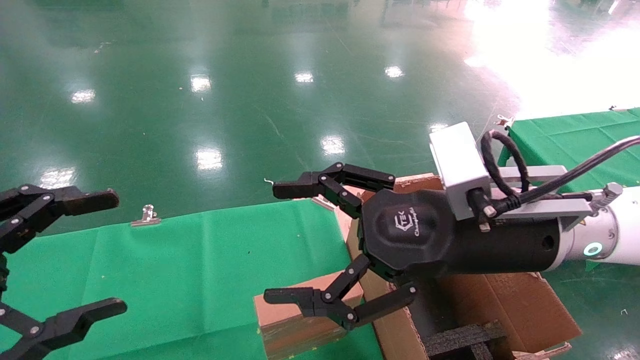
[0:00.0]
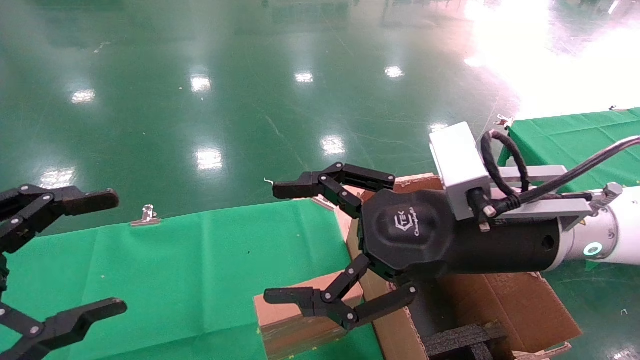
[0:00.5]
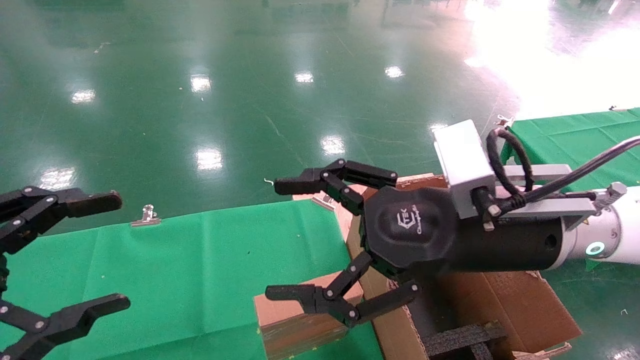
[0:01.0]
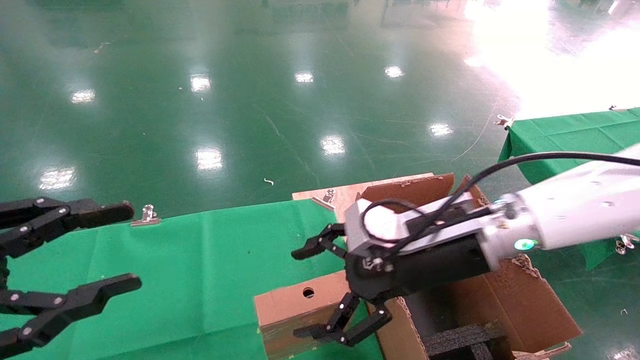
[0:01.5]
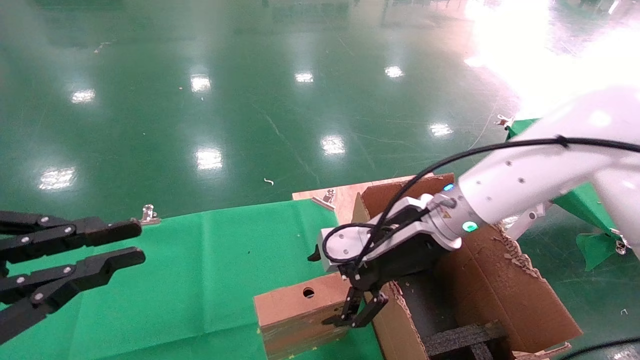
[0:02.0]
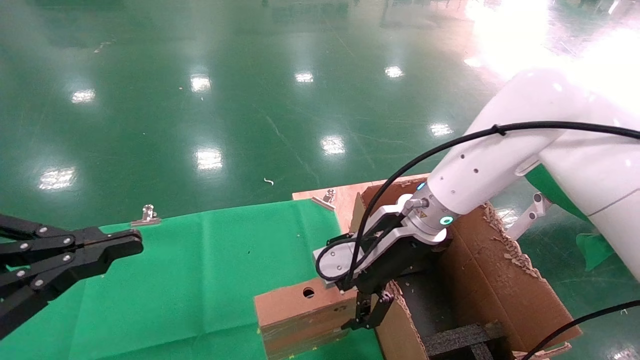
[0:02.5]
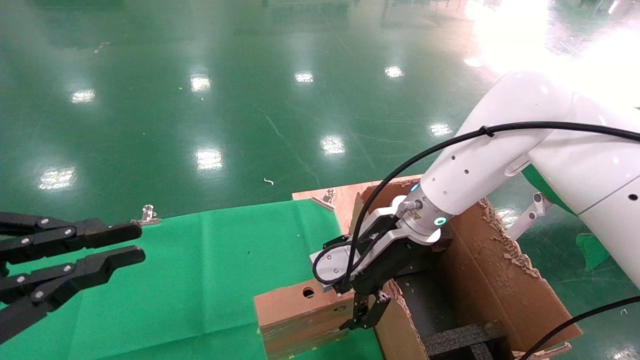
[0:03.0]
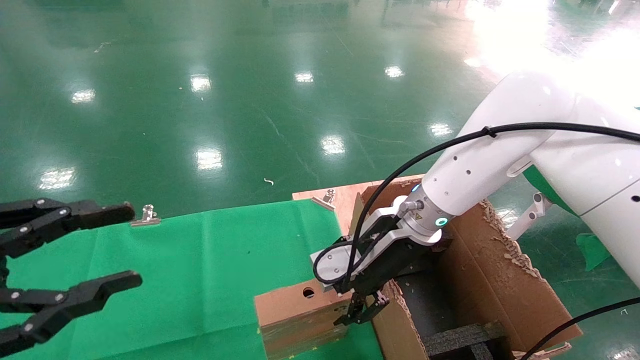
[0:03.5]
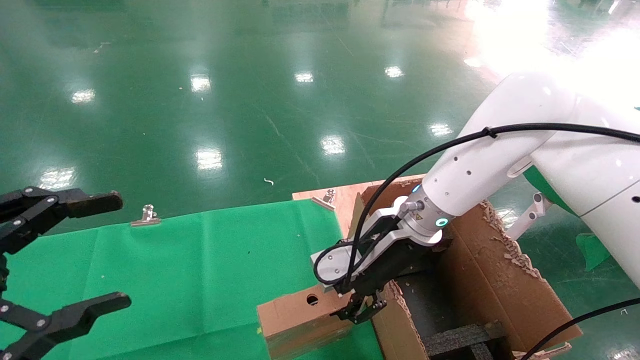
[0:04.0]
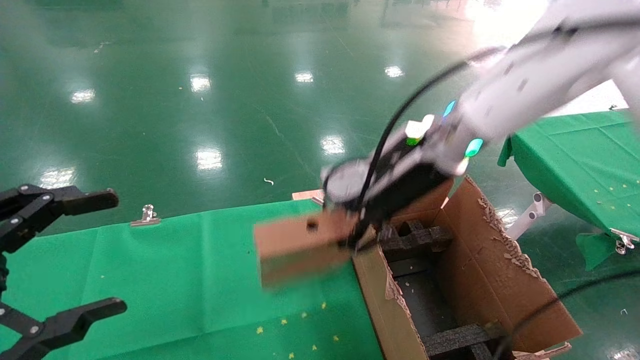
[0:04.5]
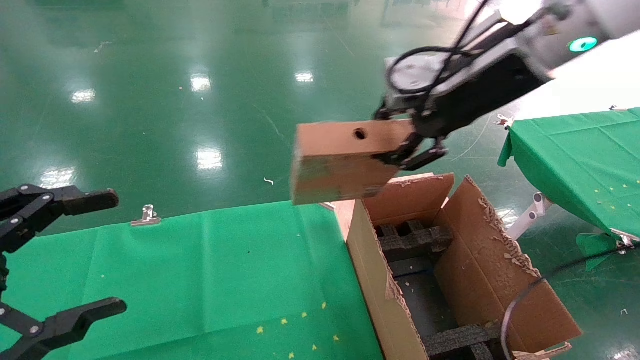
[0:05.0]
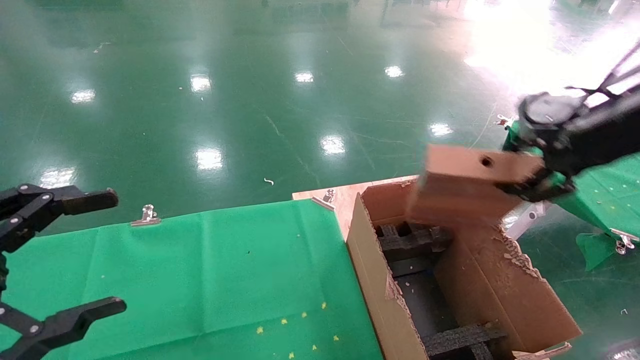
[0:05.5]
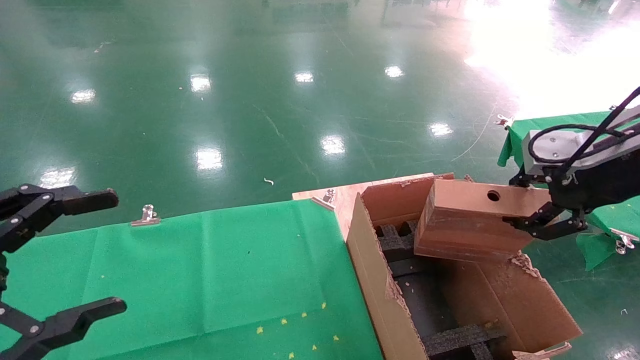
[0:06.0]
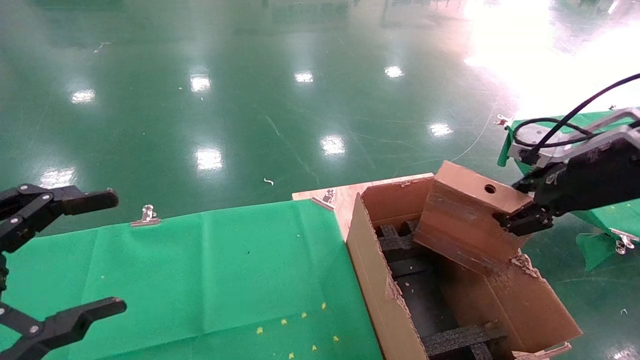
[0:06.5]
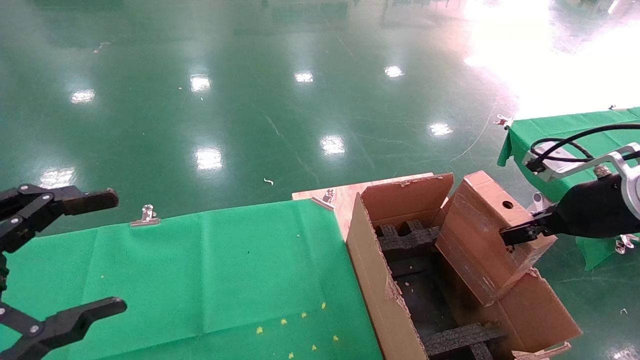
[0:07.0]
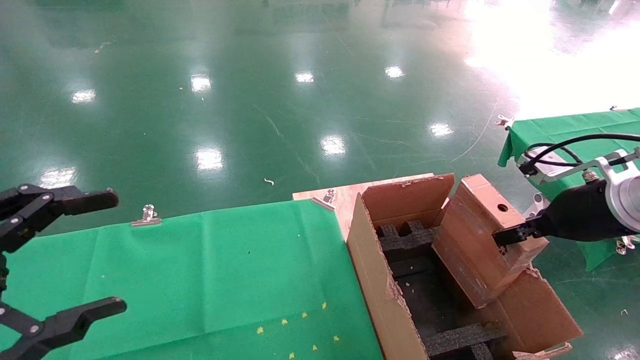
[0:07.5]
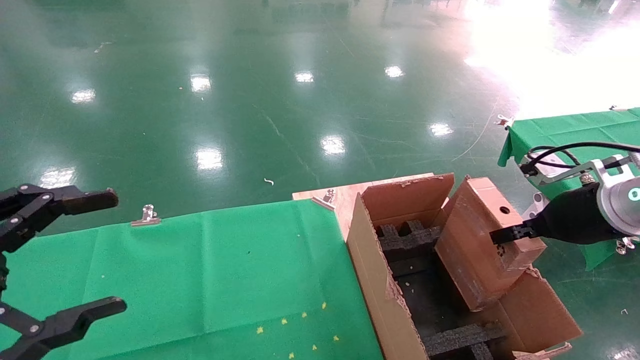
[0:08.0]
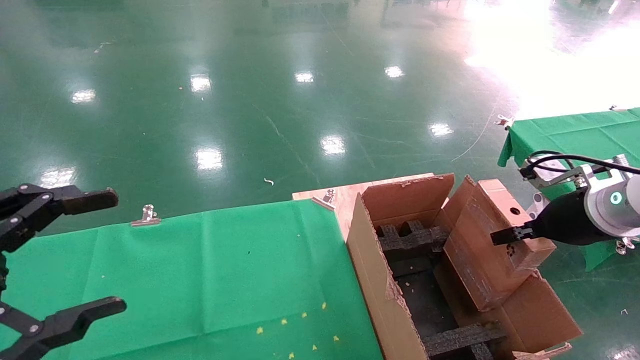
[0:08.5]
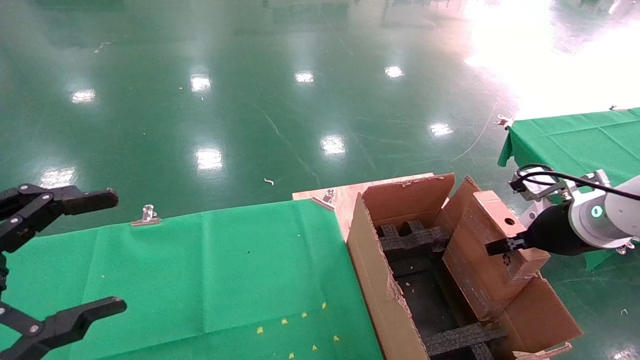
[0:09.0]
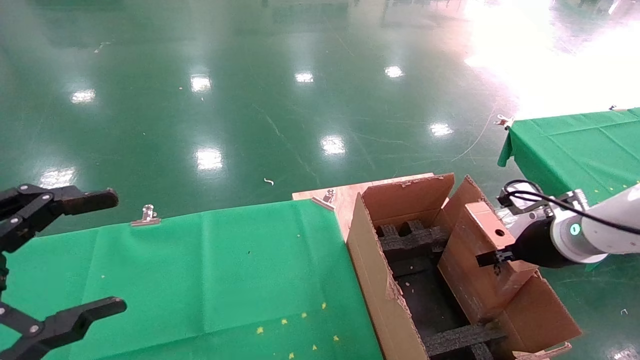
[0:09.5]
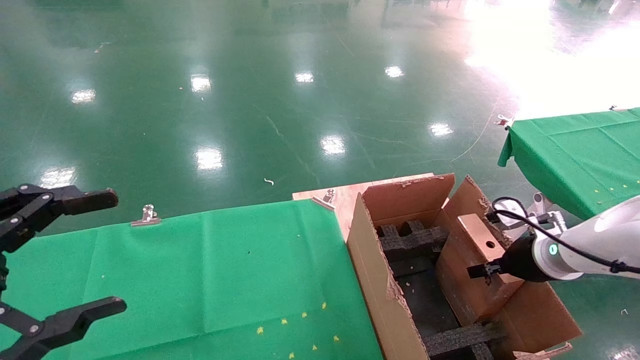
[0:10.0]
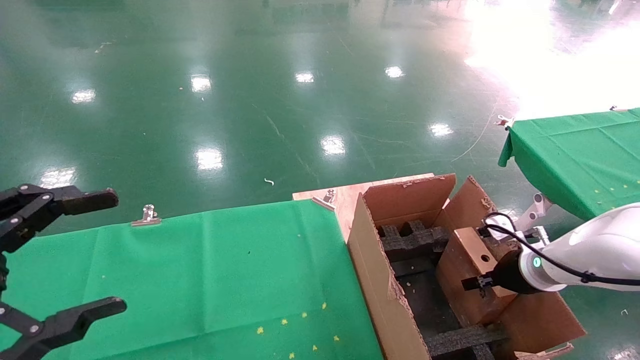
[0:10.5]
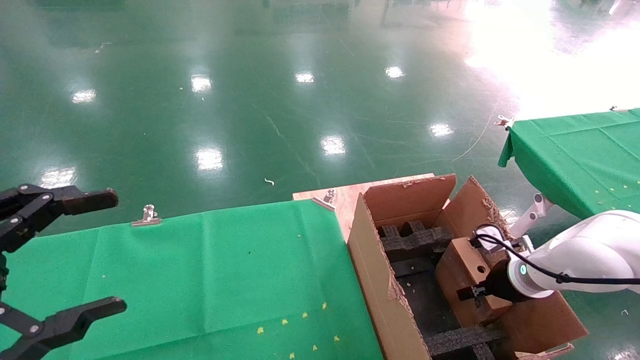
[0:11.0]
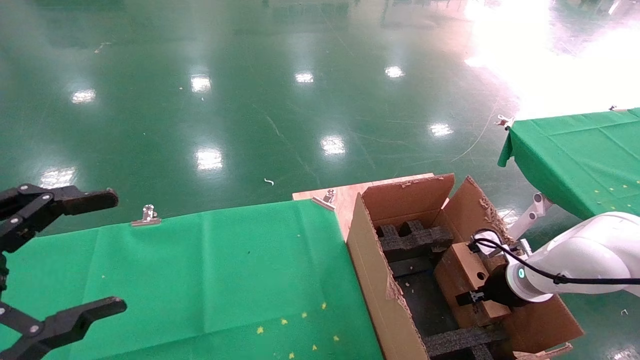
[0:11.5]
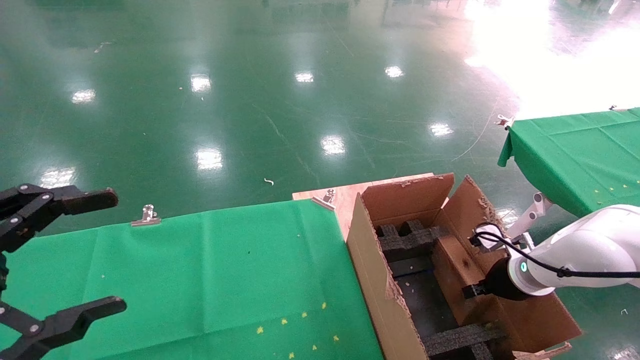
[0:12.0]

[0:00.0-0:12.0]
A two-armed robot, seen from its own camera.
Task of the whole recording: using a robotic arm to pick up a cardboard box and palace it the carton.
Step, 0:01.5 to 0:04.0: Pick up the mouse and the power cord paper box.
0:00.0 to 0:02.0: The right gripper is displaced forward by about 10 cm; the left gripper closes up.
0:02.0 to 0:04.0: The left gripper opens its fingers. Meanwhile the right gripper closes.
0:04.0 to 0:06.0: The right gripper shifts roughly 30 cm to the right, upward and backward.
0:06.0 to 0:08.0: The right gripper moves downward, about 10 cm.
0:08.0 to 0:10.0: The right gripper travels downward and forward by some 10 cm.
0:10.0 to 0:12.0: The right gripper moves some 5 cm, and opens.

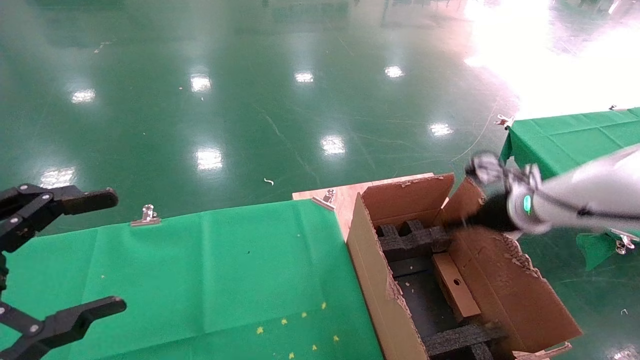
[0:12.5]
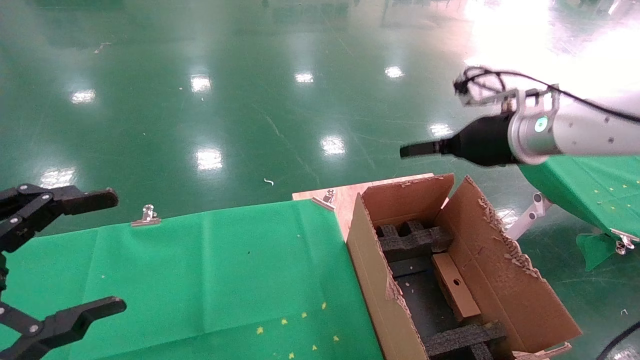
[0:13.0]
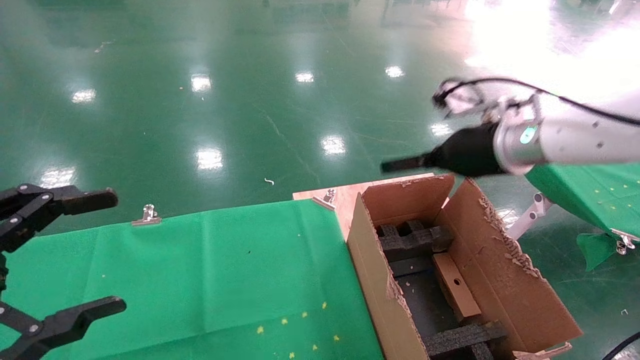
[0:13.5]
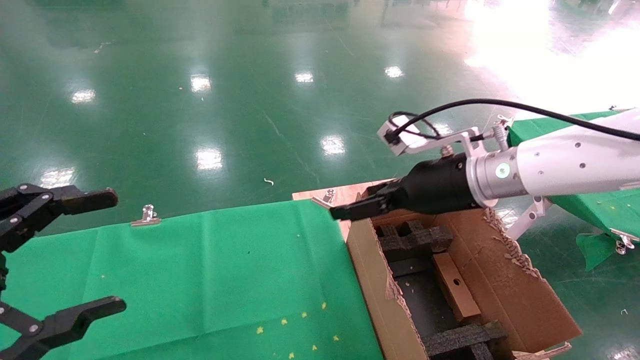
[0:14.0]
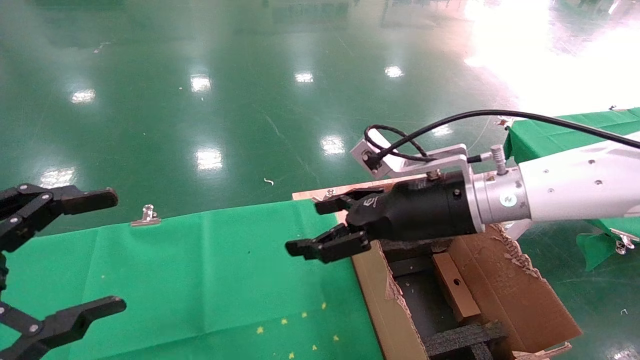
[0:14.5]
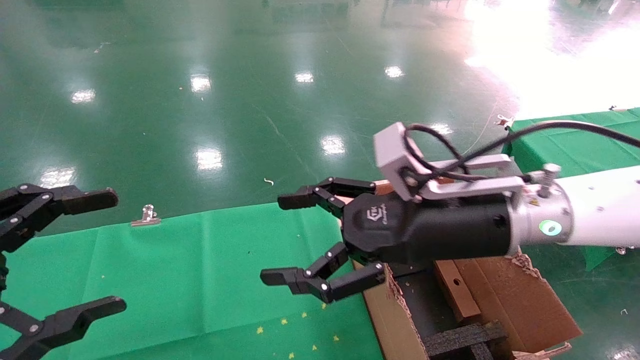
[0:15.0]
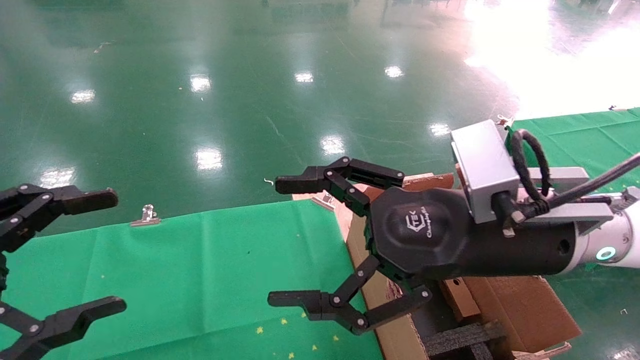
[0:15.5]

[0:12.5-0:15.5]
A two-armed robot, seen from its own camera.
Task of the whole recording: using a robotic arm to pick up a cardboard box and palace it the carton.
0:12.5 to 0:14.0: The right gripper shifts about 15 cm to the left and upward.
0:14.0 to 0:15.5: The right gripper moves backward, roughly 10 cm.
